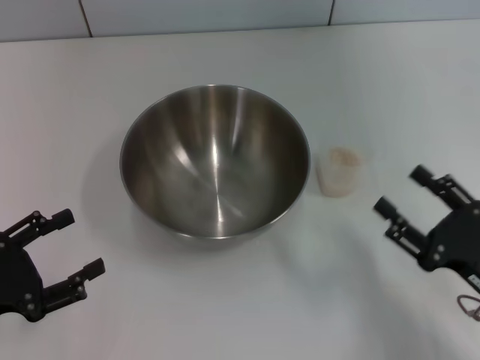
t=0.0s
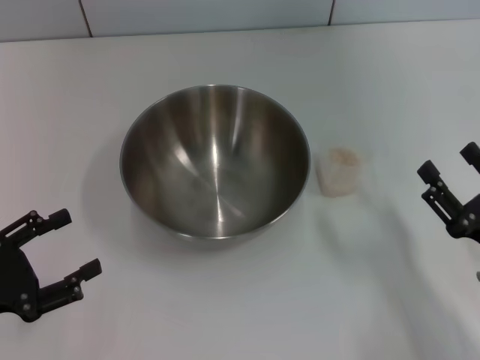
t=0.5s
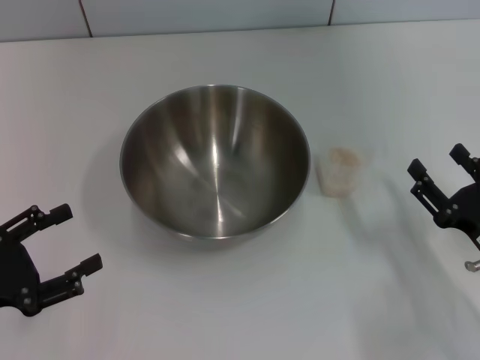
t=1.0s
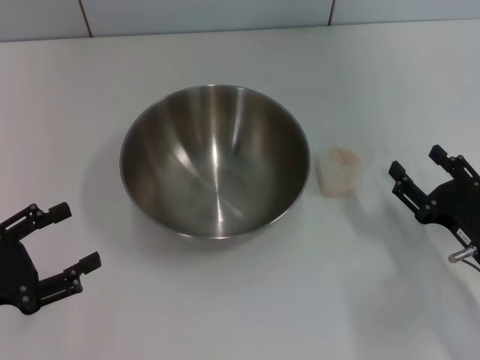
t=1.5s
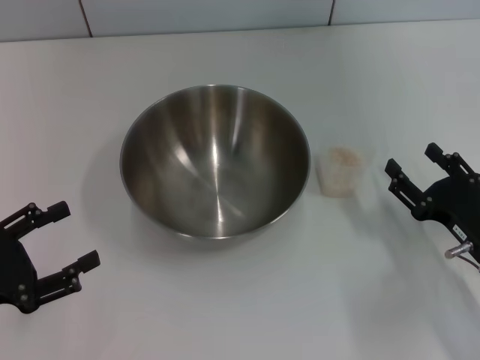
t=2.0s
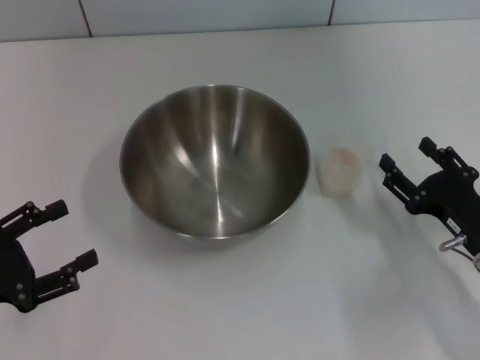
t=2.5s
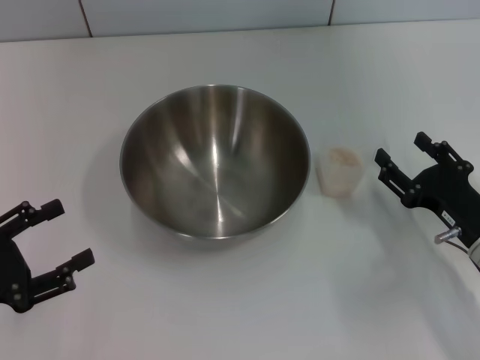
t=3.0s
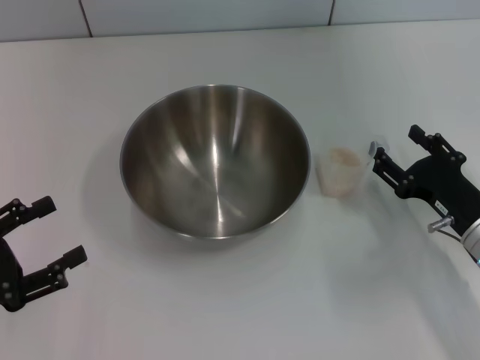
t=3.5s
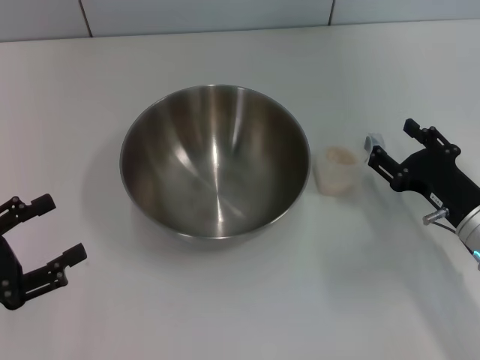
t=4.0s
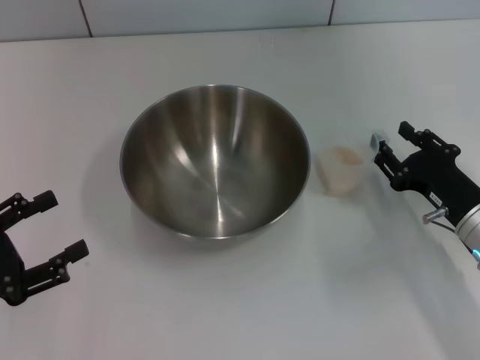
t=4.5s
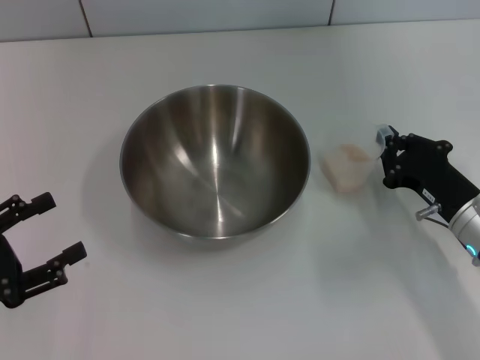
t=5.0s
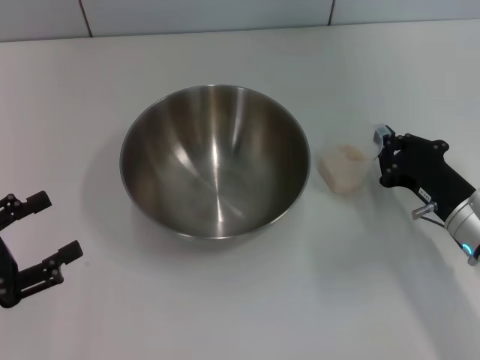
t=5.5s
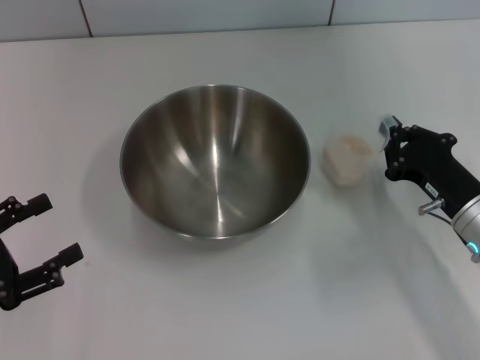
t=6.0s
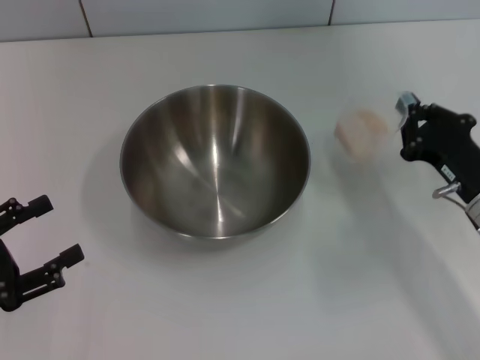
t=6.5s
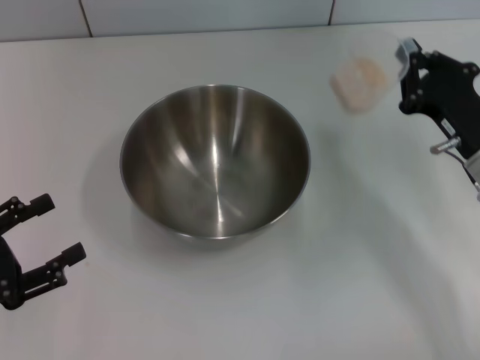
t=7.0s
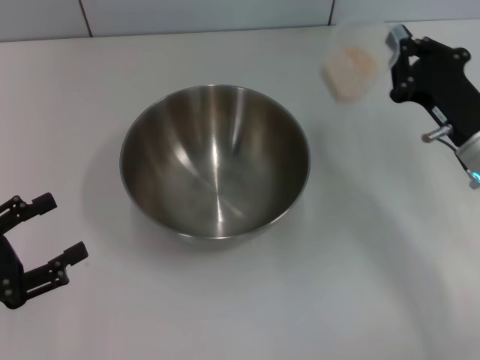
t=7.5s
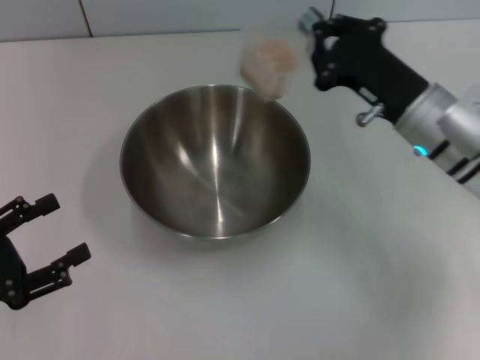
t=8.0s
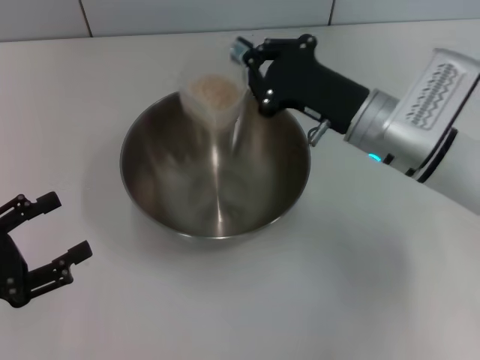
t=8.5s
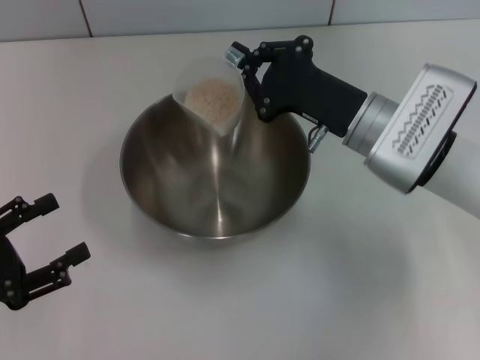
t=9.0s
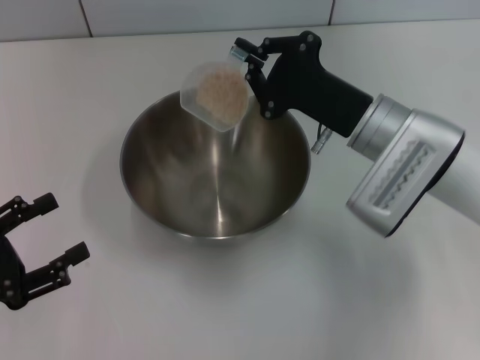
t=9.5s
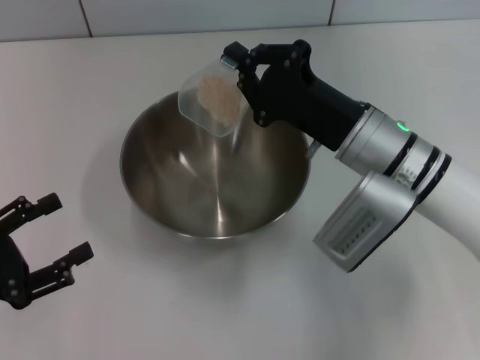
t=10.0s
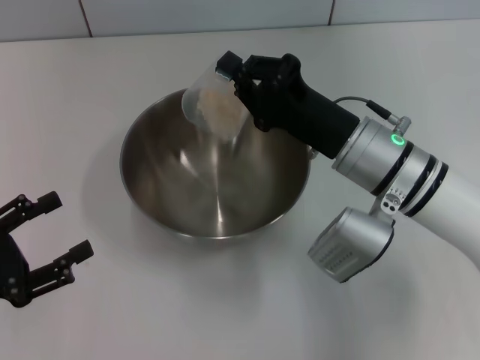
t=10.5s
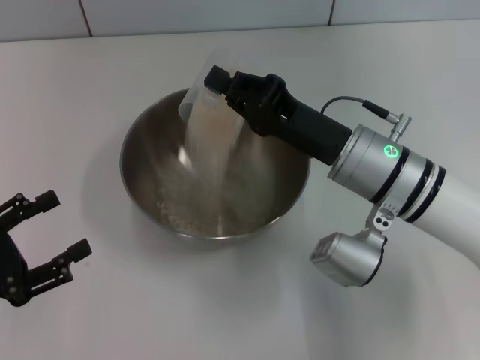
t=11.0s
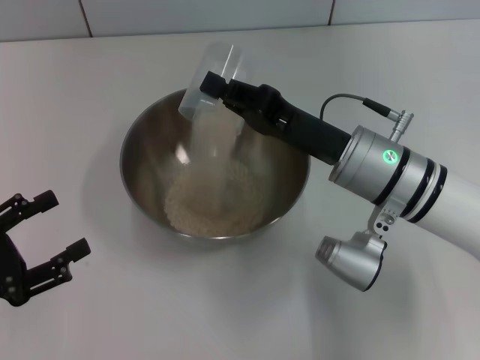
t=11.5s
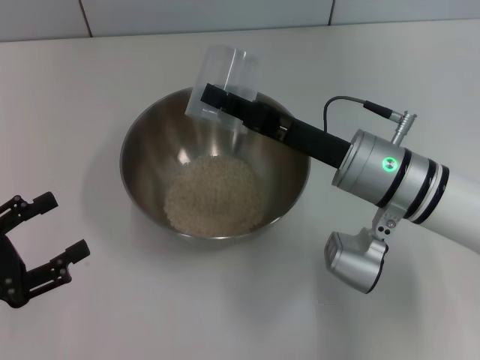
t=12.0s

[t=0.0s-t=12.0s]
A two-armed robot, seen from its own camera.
Task of the whole recording: Place the bowl in the middle of the table with one hand and pour the rice from the grain cup into it with the other hand.
Step, t=0.0s to t=7.0s: Pick up the cup with rice in it with the right gripper.
t=0.0s to t=2.0s: The right gripper moves forward, roughly 5 cm.
t=2.0s to t=4.0s: The grippers stay close to where they were, moving slightly.
t=4.0s to t=6.0s: The right gripper closes its fingers.
t=6.0s to t=8.0s: The right gripper is displaced forward, upward and to the left by roughly 10 cm.
t=8.0s to t=10.0s: The right gripper is displaced to the left by some 5 cm.

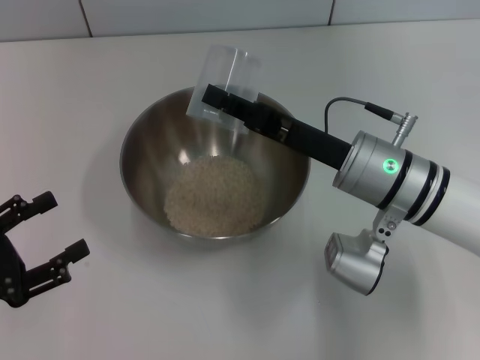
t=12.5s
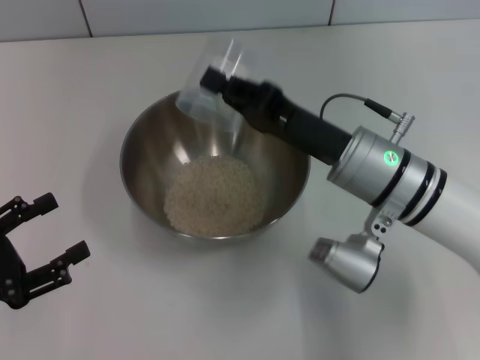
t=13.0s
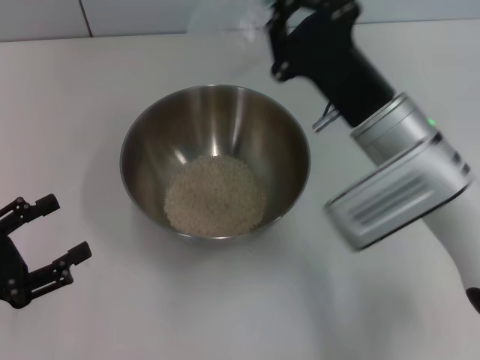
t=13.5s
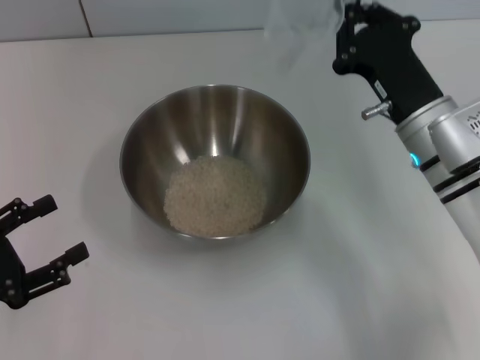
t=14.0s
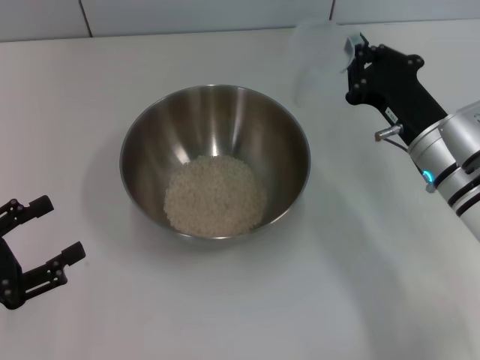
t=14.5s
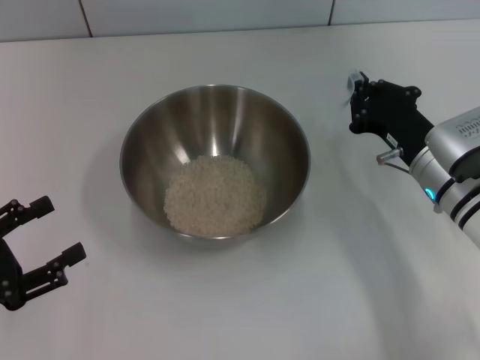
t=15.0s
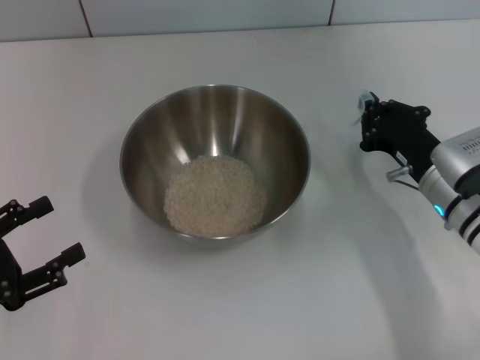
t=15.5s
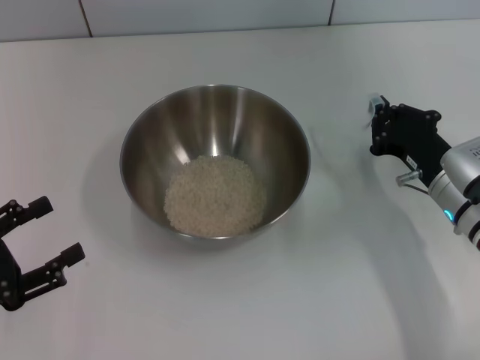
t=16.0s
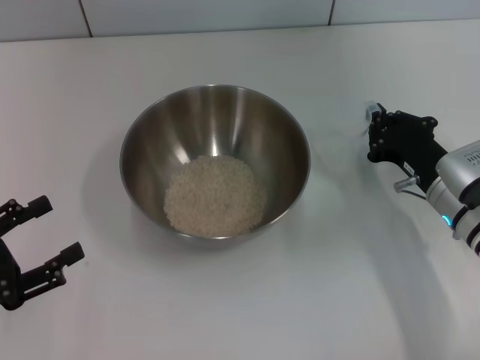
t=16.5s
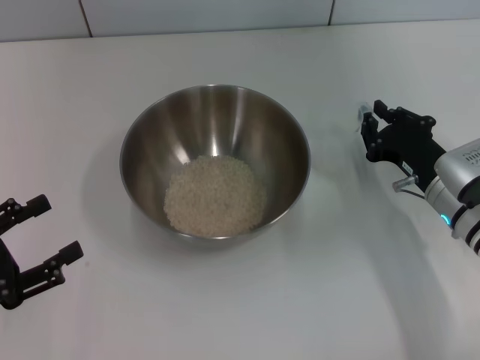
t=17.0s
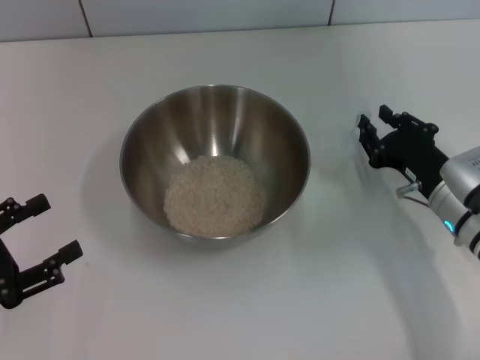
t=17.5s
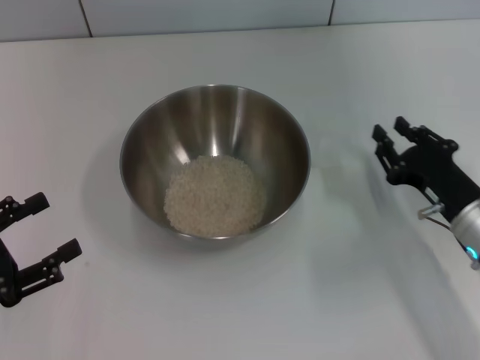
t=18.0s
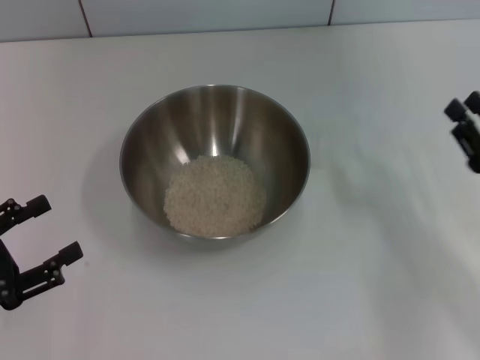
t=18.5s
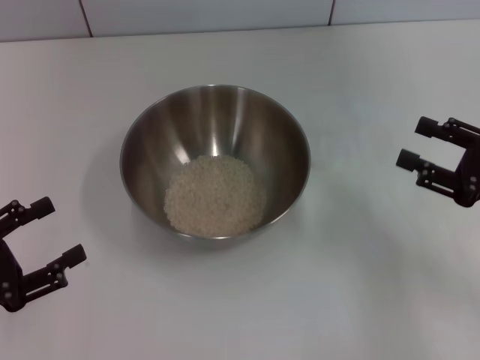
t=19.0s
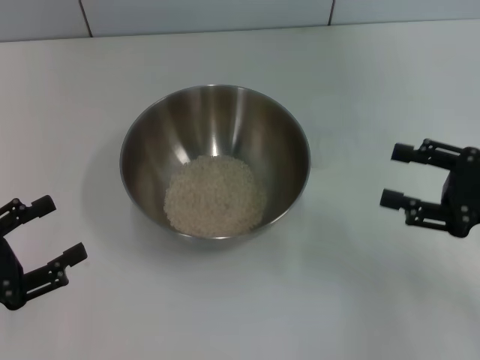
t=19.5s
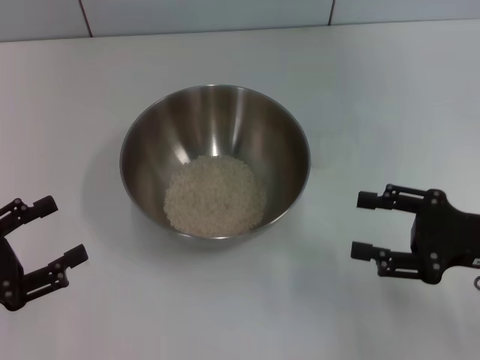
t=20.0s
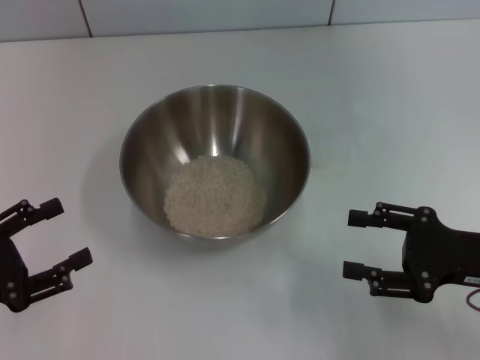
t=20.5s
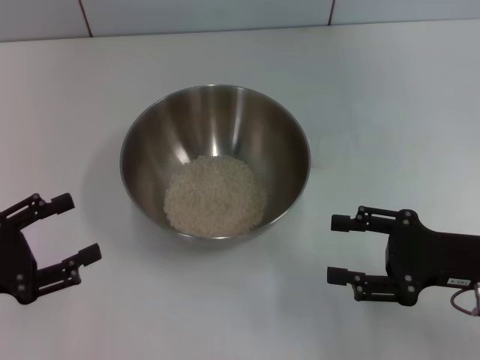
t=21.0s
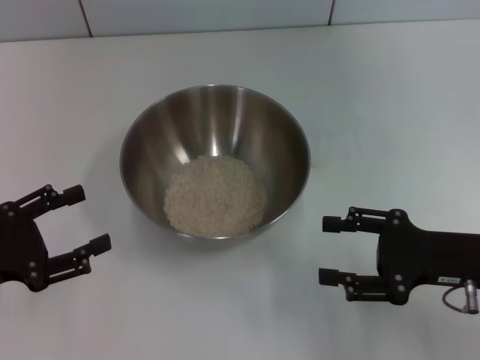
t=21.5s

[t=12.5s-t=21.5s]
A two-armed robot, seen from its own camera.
Task of the whole recording: Place the bowl in the middle of the table with one hand and pour the rice from the grain cup into it with the other hand.
Step, t=13.5s to t=18.0s: Place the cup on the table with the right gripper.
t=12.5s to t=14.5s: The right gripper shifts about 5 cm to the right.
t=14.5s to t=17.0s: The right gripper shifts by approximately 5 cm.
t=17.0s to t=19.5s: The right gripper heads to the right and upward, covering about 10 cm, and opens.
t=19.5s to t=21.5s: The right gripper travels to the left by about 5 cm.
